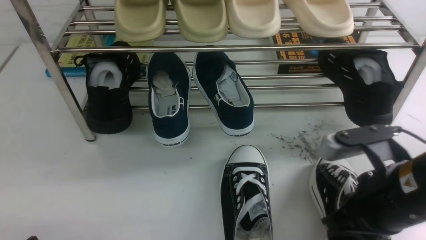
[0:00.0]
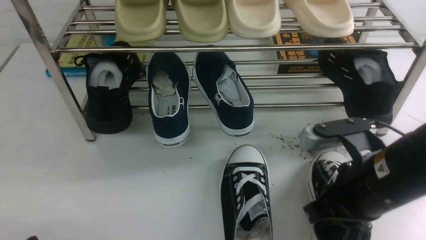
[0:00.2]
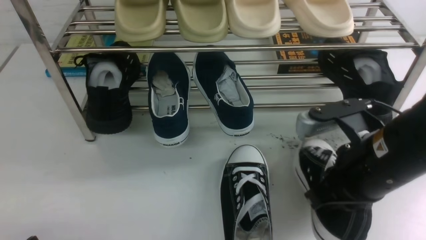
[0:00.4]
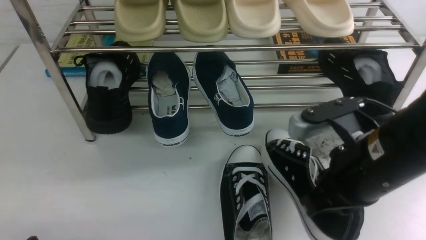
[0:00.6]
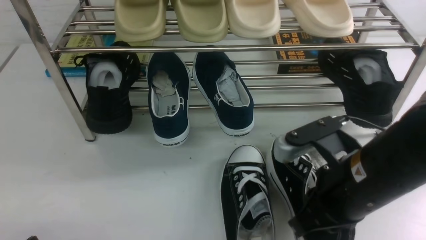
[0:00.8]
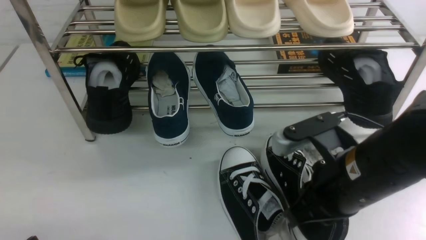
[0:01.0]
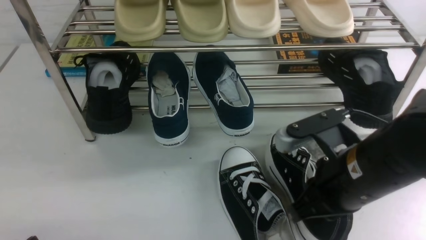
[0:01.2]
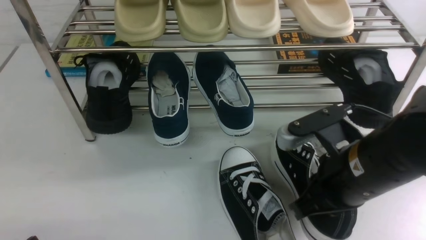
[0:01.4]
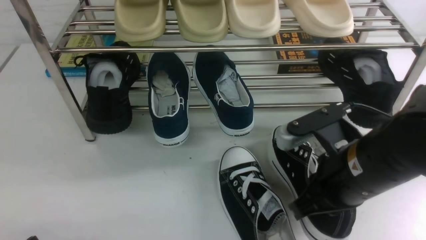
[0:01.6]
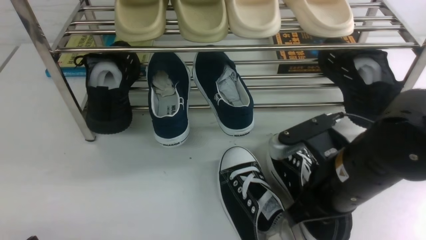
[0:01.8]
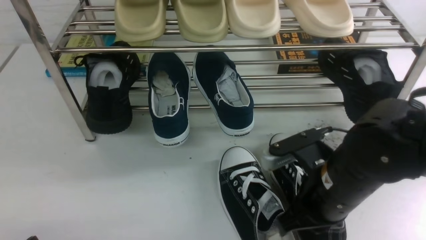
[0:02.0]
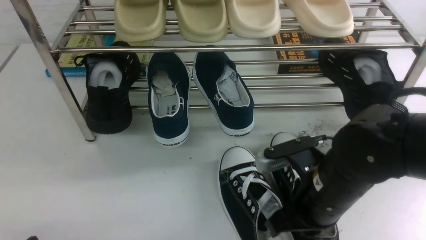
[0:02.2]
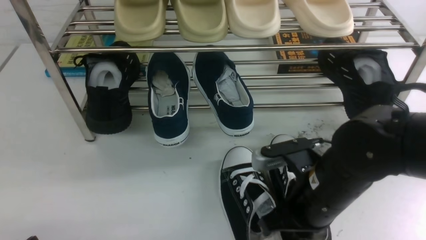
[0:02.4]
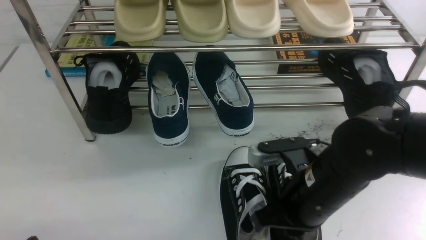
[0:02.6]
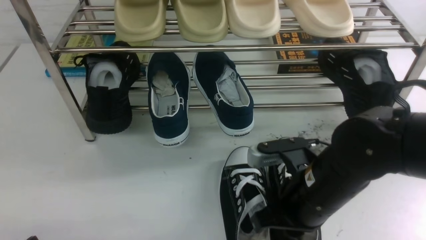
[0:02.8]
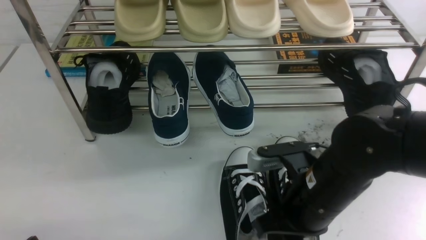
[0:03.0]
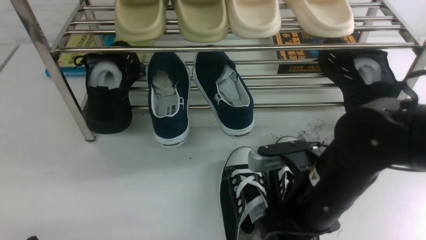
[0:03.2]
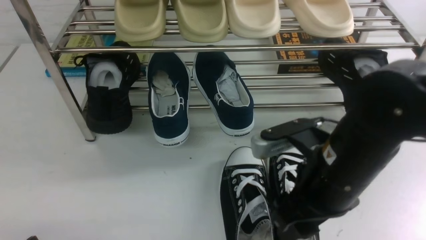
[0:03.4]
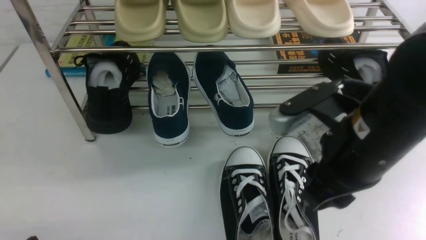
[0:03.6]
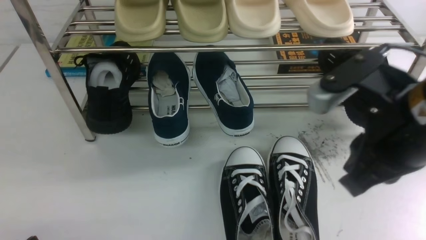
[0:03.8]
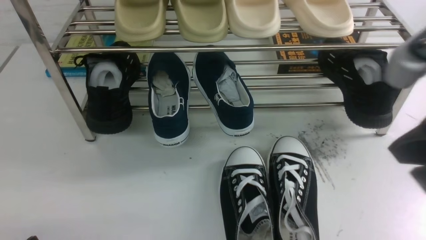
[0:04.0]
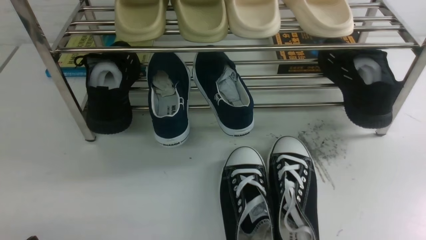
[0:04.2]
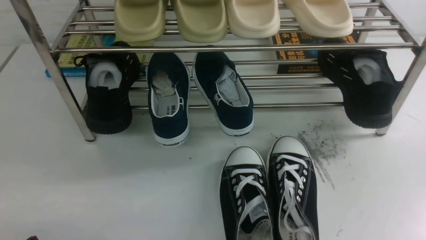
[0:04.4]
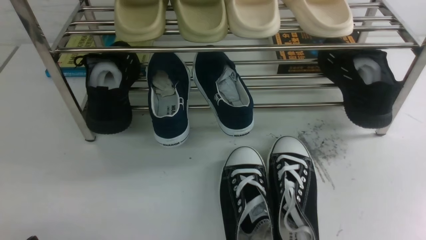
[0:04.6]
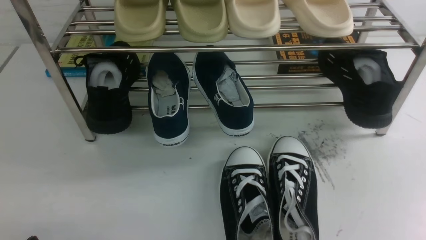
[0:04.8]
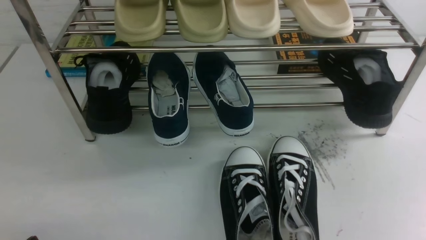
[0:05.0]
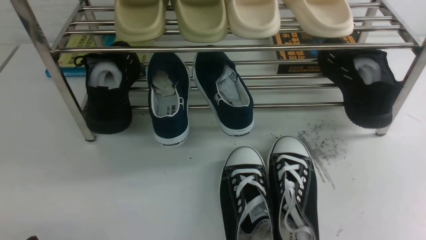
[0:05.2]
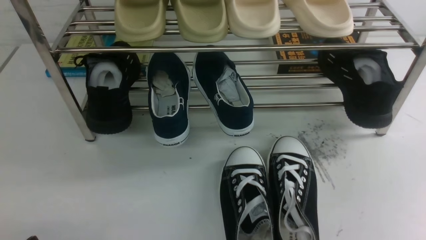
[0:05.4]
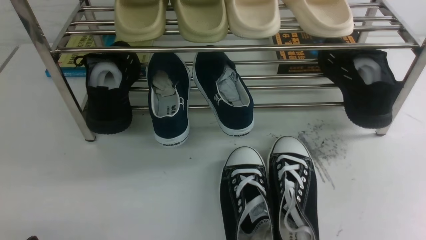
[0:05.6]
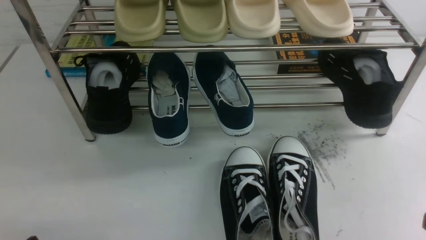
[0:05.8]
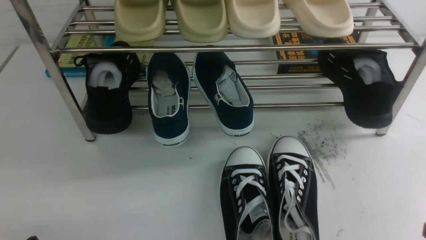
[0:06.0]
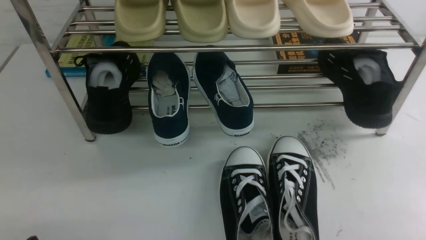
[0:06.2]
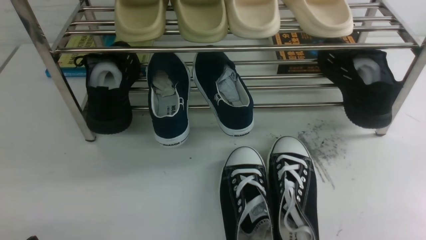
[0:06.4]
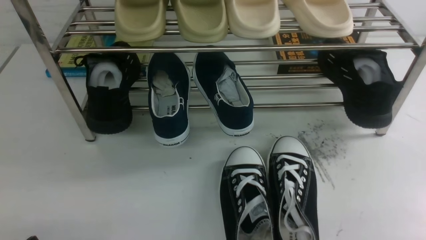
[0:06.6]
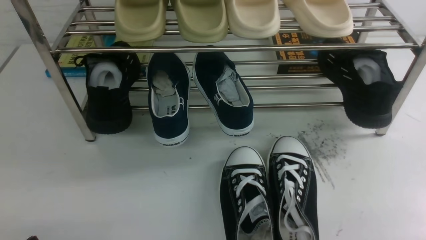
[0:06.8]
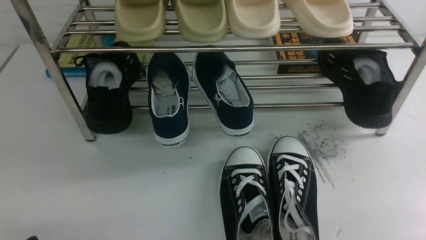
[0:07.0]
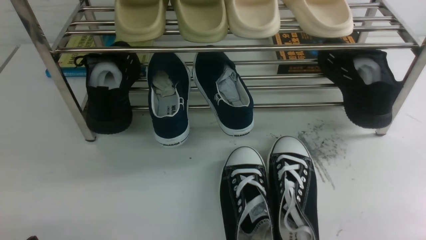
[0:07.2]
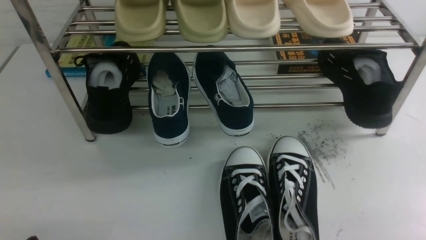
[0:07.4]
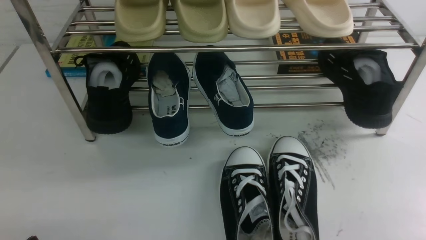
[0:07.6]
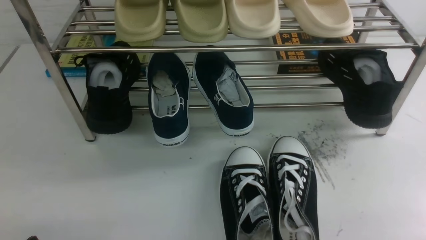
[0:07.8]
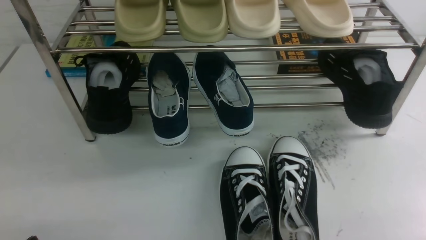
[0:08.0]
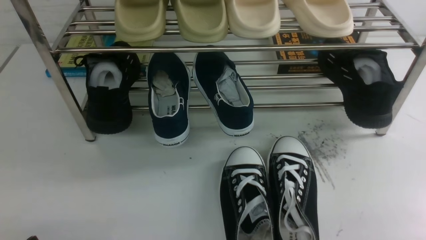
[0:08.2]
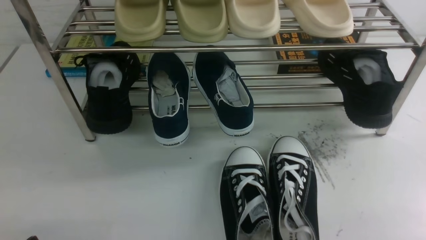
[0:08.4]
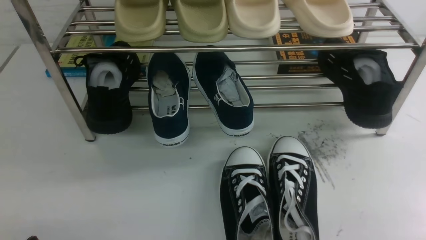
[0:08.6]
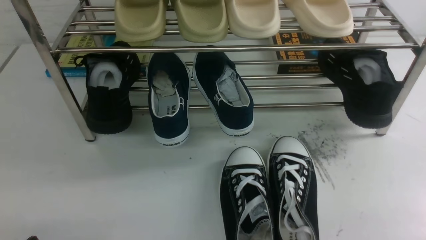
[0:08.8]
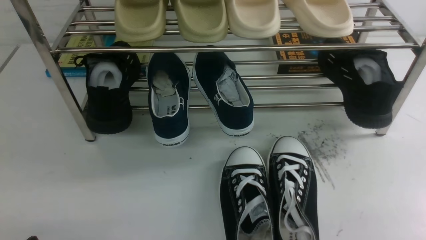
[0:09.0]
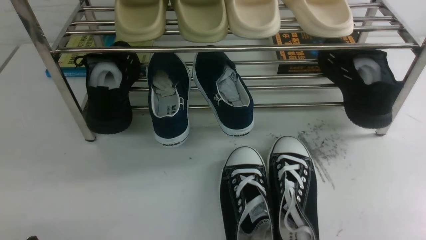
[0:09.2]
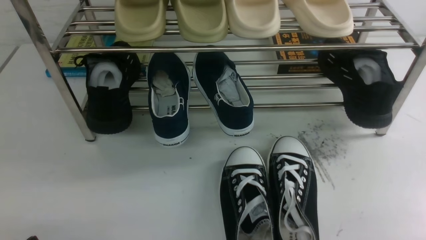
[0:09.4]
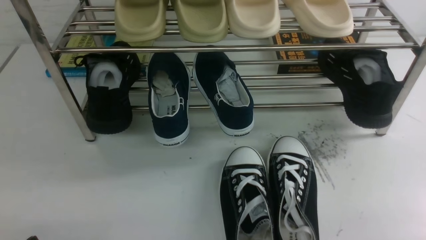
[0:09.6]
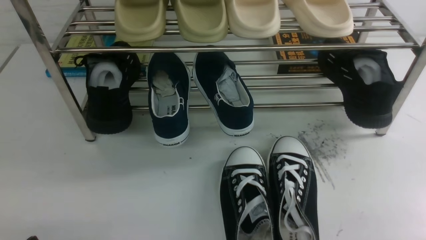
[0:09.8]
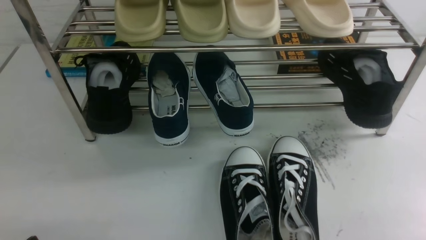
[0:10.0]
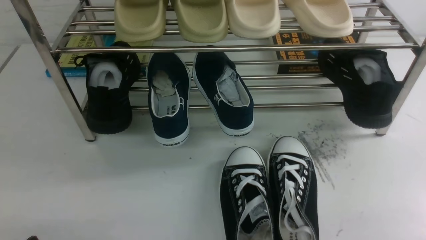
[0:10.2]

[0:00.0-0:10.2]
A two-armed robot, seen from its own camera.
Step, 0:00.0 to 0:03.4: use the right arm to take out the clamped shoe from the shoe rack and put it down.
0:00.0 to 0:01.4: There are only small adjustments of the grippers.
0:01.4 to 0:03.0: The right gripper changes place by approximately 5 cm, and opens its fingers.
0:03.0 to 0:04.4: The right gripper goes some 25 cm to the right, backward and upward, and closes up.
0:07.2 to 0:10.2: Neither gripper changes place.

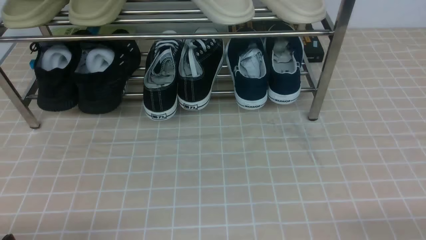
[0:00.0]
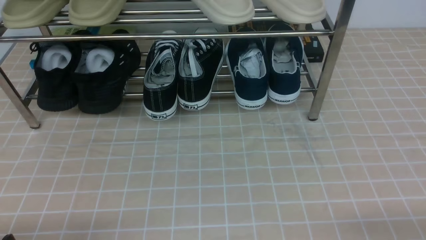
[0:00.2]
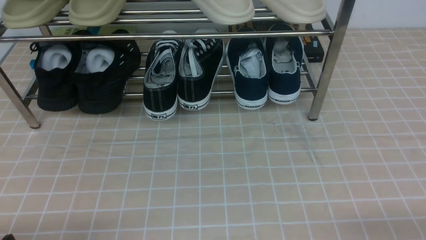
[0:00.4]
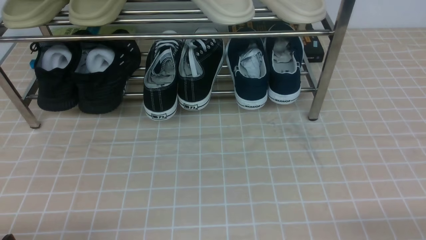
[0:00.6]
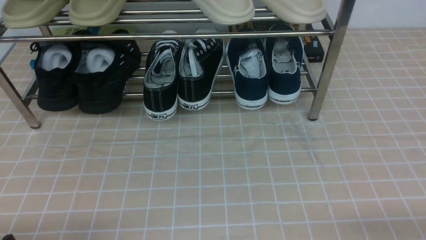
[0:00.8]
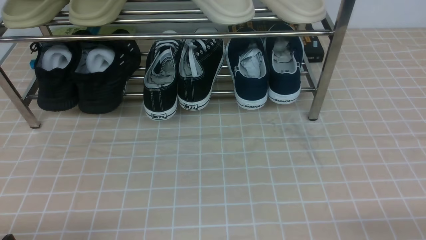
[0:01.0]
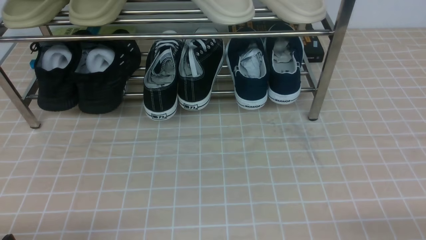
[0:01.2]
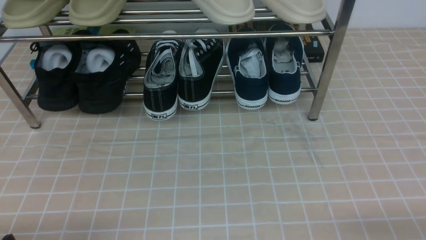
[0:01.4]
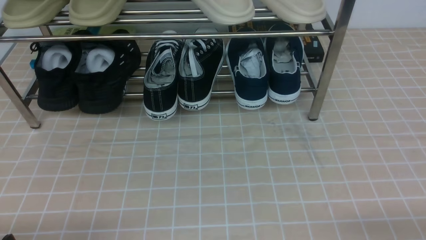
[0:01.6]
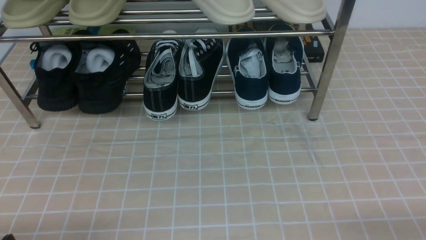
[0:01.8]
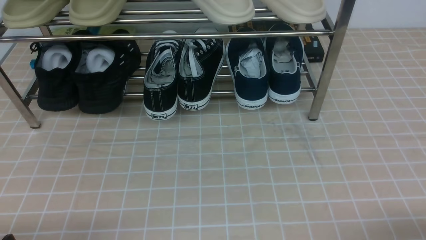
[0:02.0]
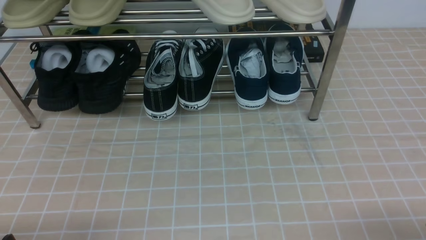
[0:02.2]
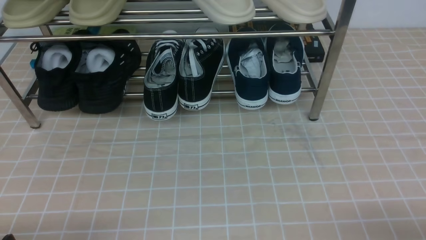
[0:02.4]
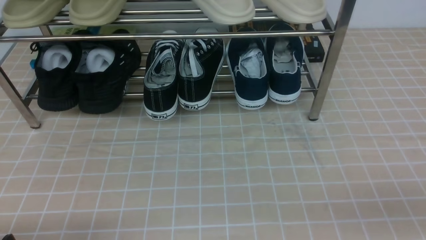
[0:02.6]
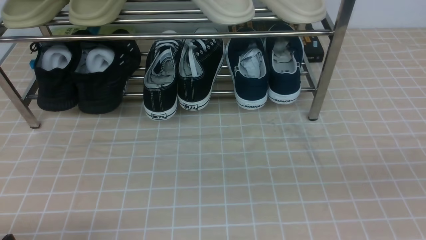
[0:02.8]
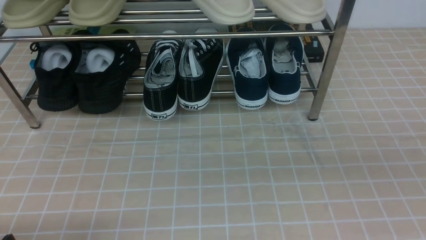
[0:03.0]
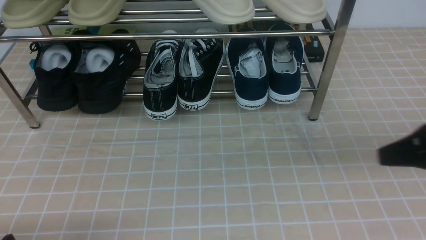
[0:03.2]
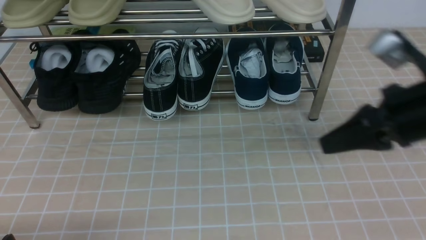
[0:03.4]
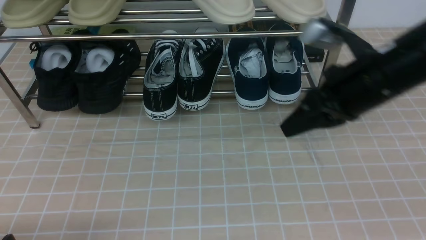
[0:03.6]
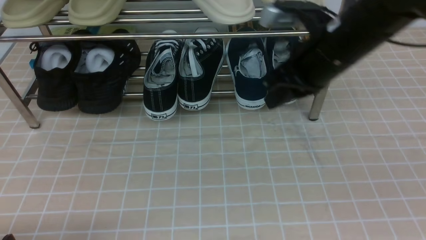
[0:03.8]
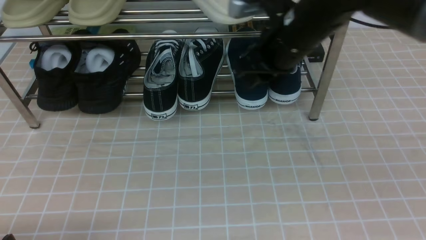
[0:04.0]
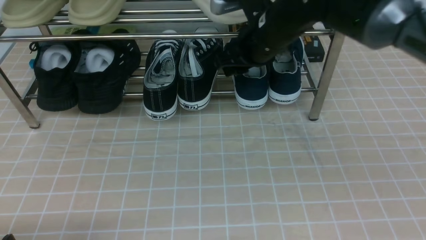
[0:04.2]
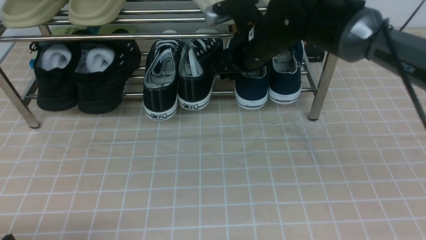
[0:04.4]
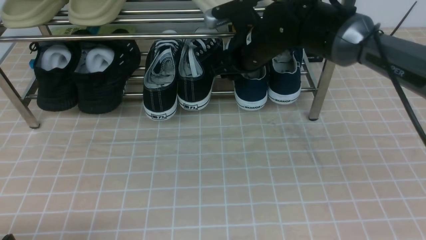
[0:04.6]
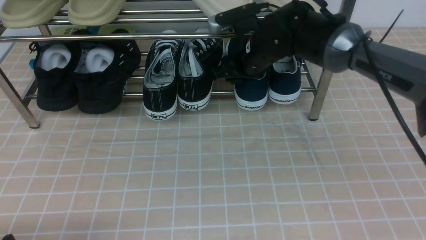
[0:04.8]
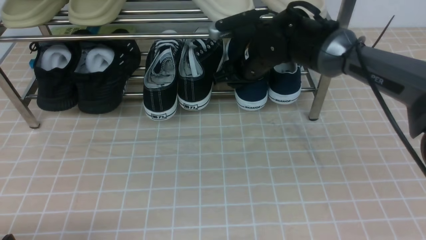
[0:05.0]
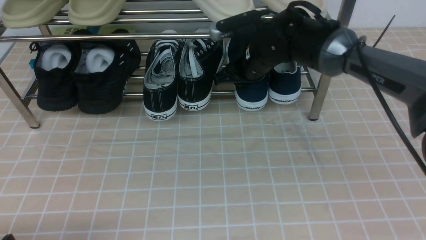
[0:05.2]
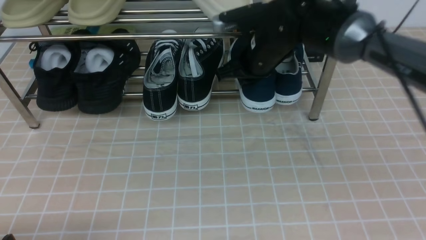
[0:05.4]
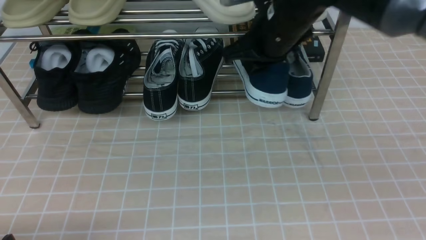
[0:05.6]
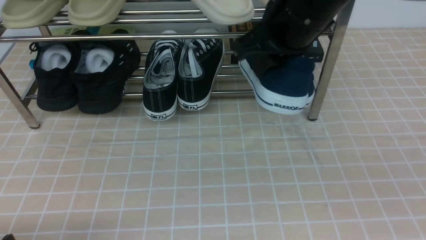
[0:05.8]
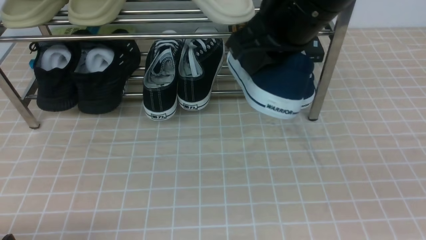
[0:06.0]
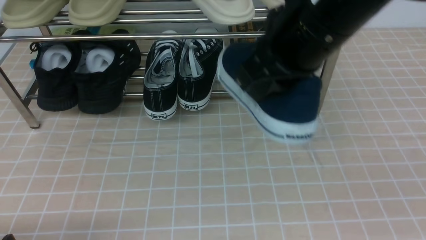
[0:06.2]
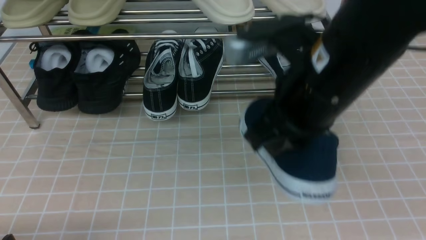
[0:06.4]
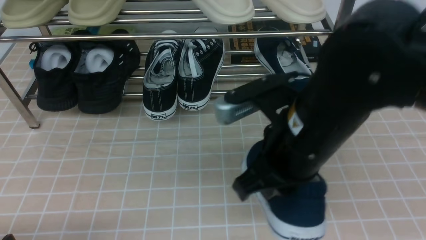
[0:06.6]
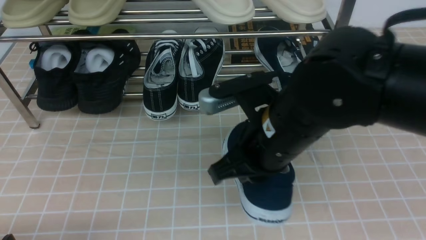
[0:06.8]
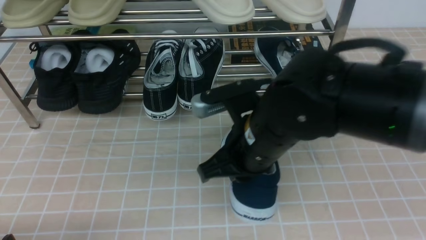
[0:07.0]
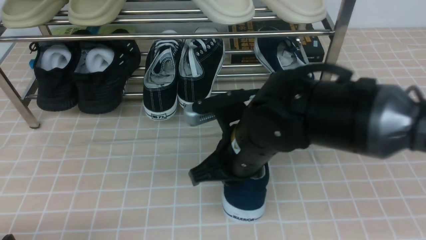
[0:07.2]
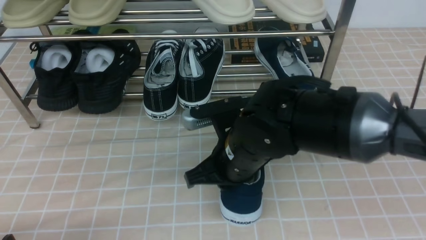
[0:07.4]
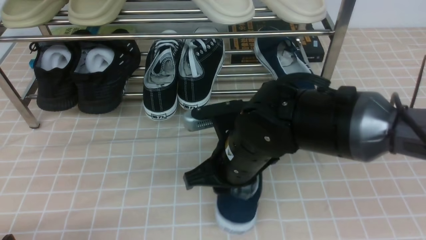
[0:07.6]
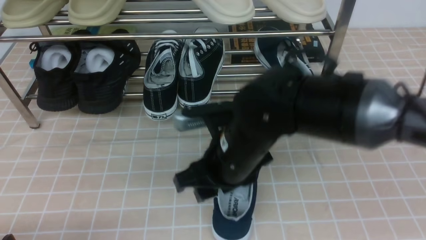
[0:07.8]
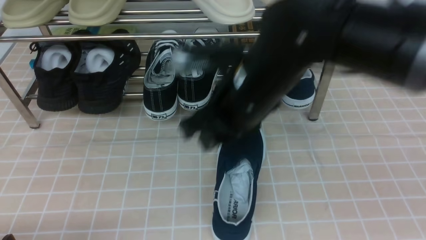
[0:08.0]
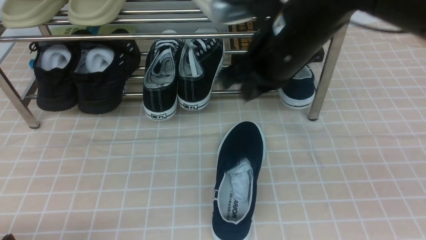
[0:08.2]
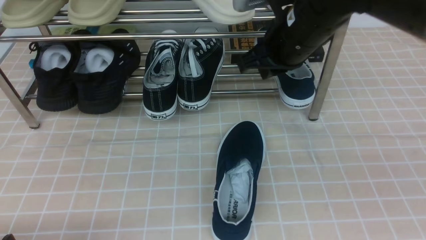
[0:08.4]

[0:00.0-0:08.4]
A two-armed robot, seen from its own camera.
Step, 0:00.0 to 0:05.2: use the right arm to clamp a shoe on the right side of the shoe rack.
Step, 0:05.4 to 0:08.0: use the right arm to take out the clamped shoe from the shoe rack and put it down.
0:00.0 to 0:01.4: Both grippers stay about where they are.
0:02.8 to 0:04.2: The right gripper travels forward and to the left by some 40 cm, and opens up.
0:04.2 to 0:05.6: The right gripper ends up about 5 cm from where it was, and closes.
0:05.6 to 0:07.0: The right gripper moves backward and downward, approximately 15 cm.
0:07.0 to 0:08.4: The right gripper travels forward, upward and to the right by some 15 cm, and opens, then closes once more.
